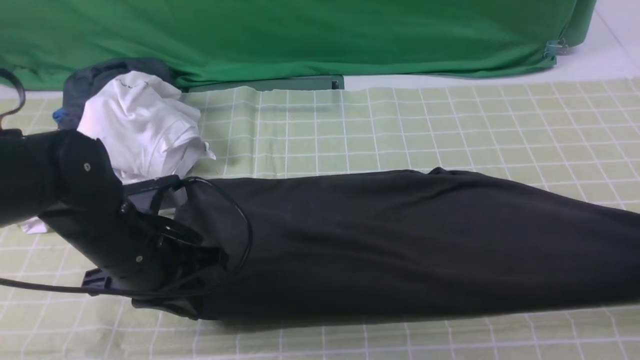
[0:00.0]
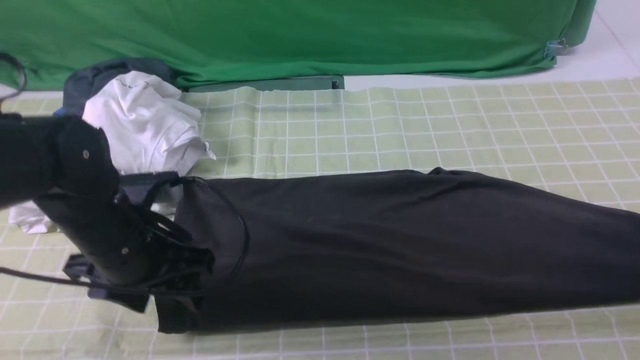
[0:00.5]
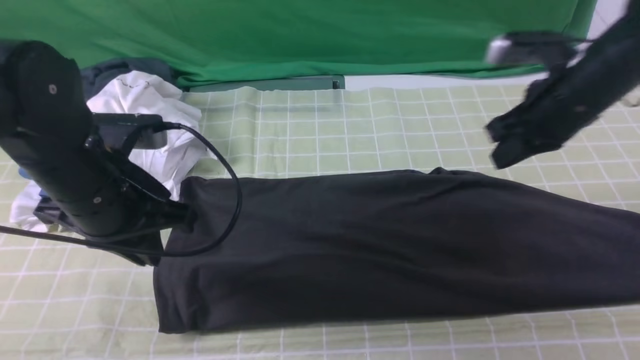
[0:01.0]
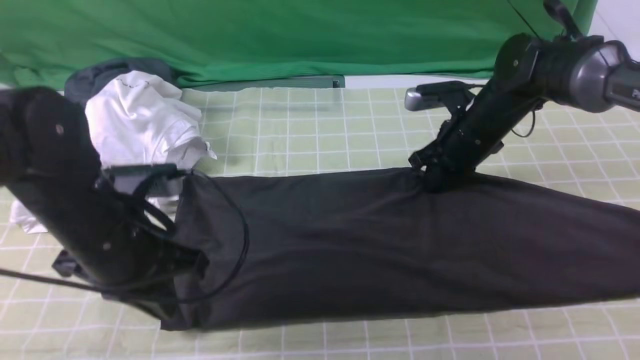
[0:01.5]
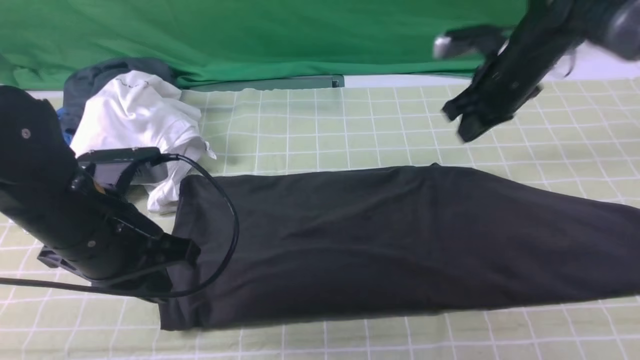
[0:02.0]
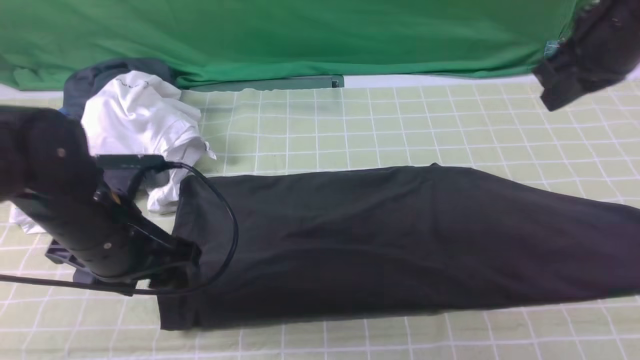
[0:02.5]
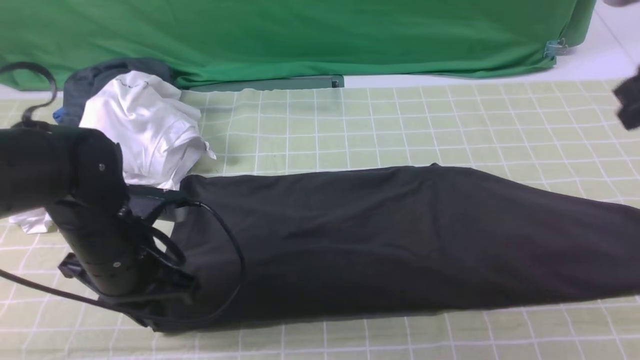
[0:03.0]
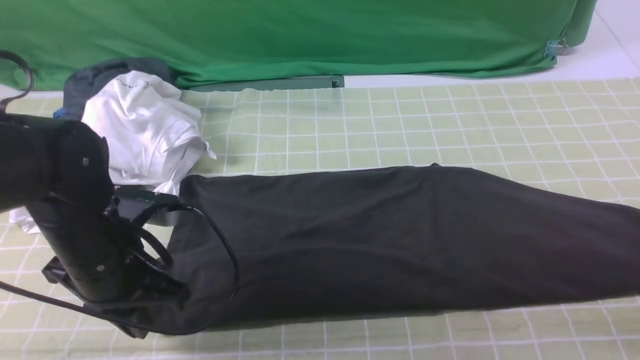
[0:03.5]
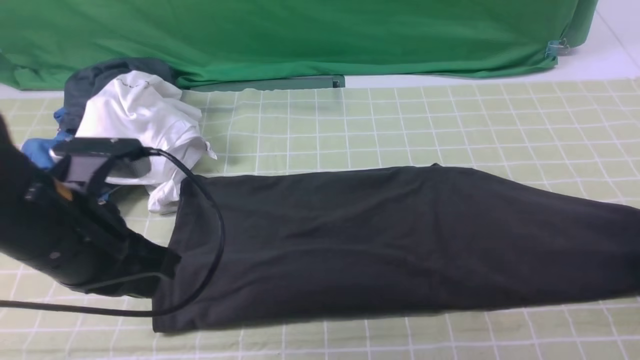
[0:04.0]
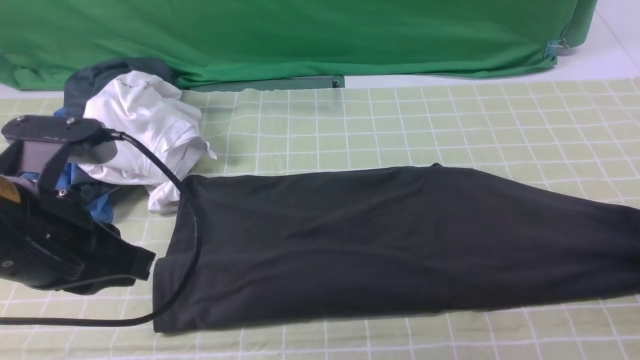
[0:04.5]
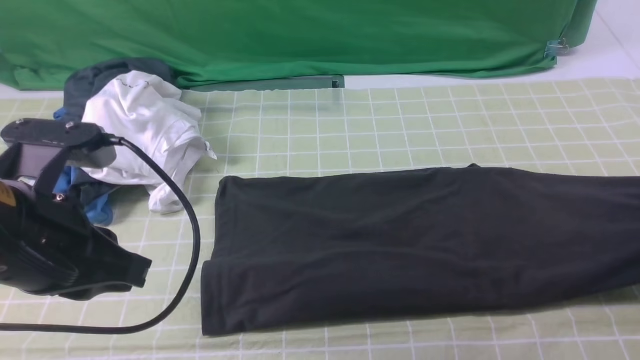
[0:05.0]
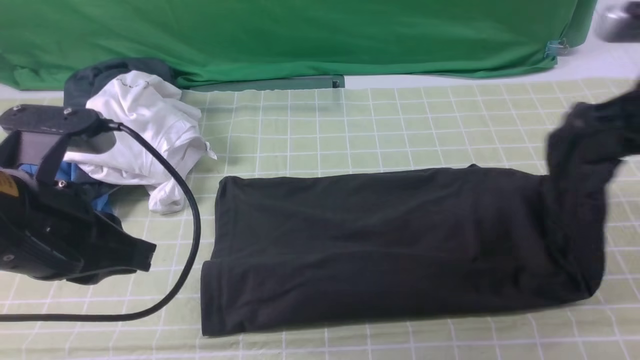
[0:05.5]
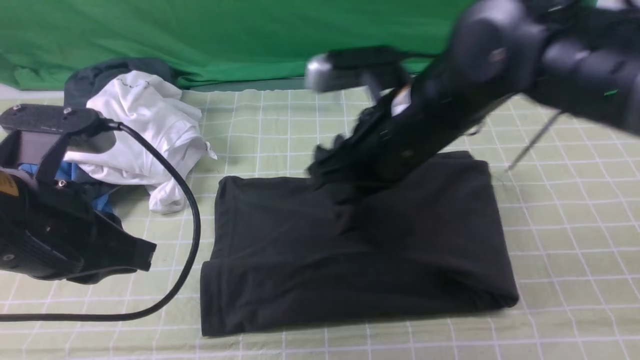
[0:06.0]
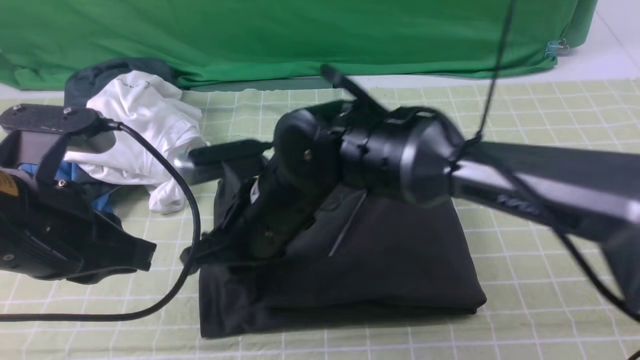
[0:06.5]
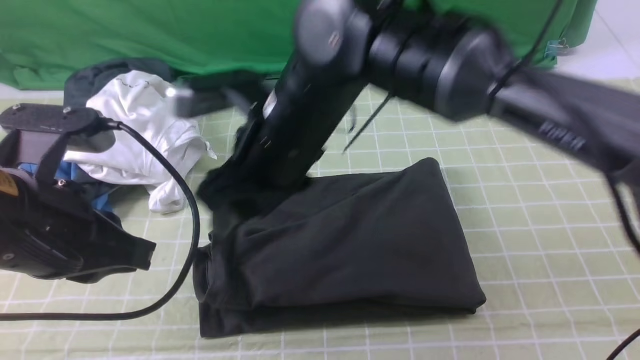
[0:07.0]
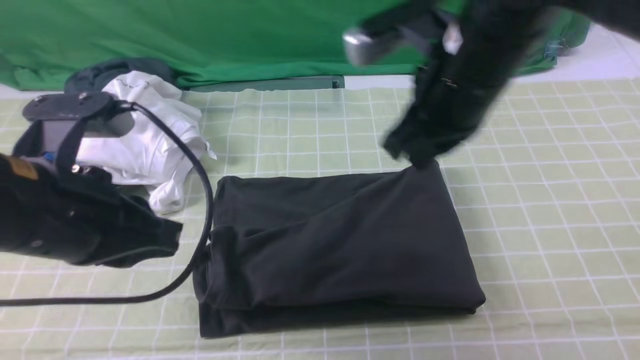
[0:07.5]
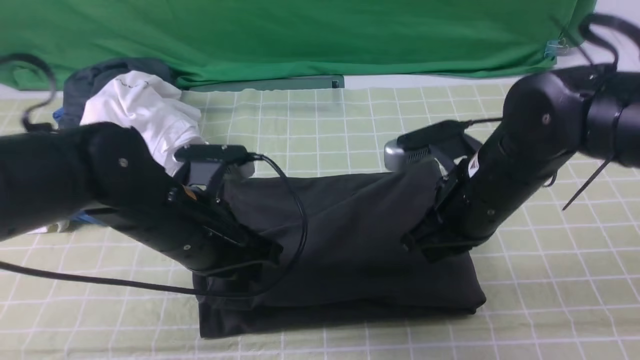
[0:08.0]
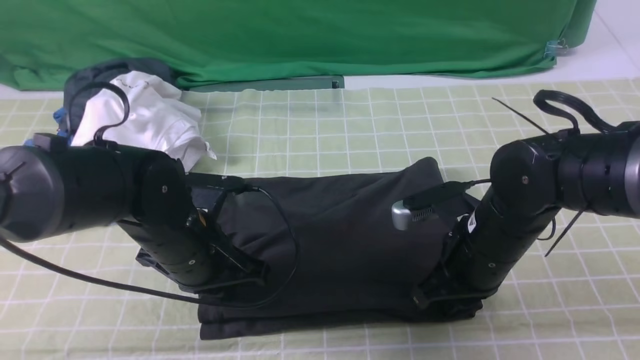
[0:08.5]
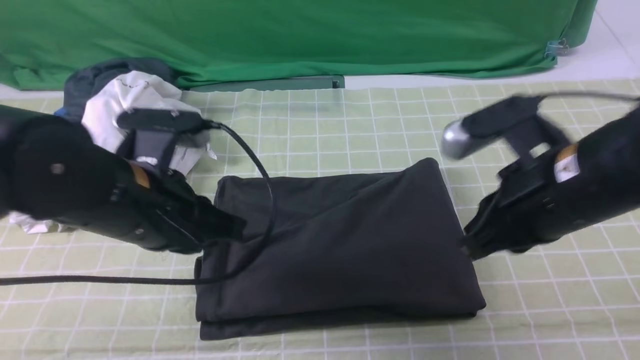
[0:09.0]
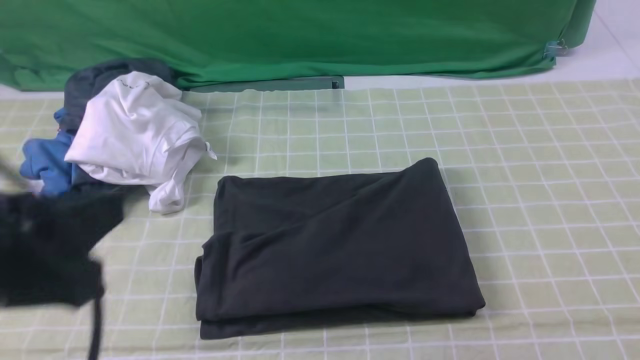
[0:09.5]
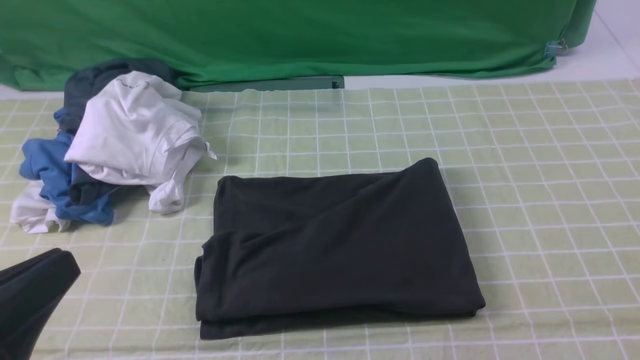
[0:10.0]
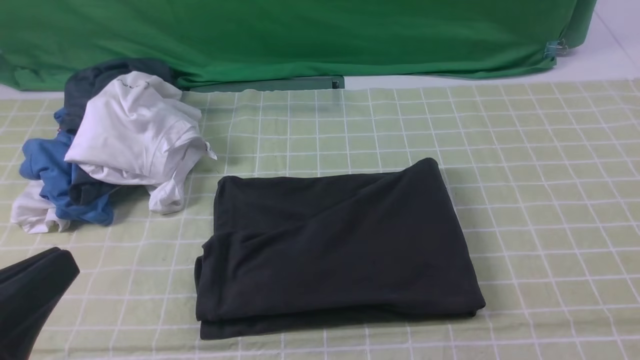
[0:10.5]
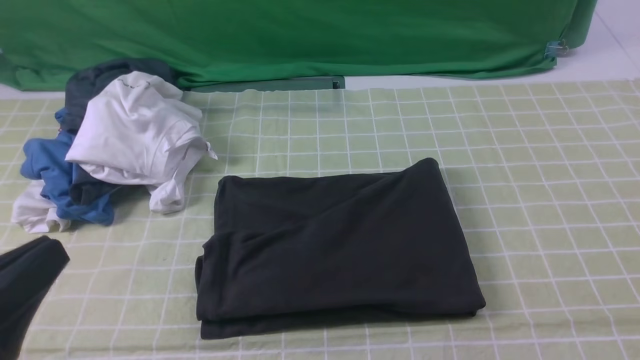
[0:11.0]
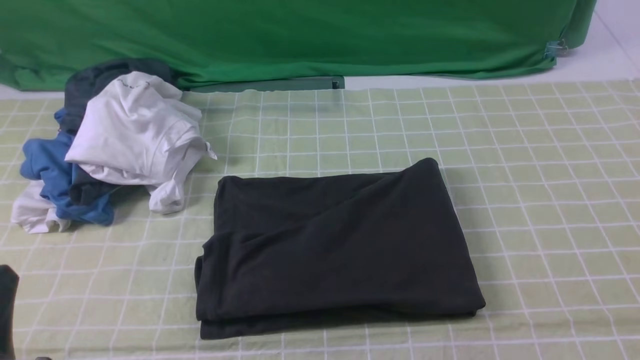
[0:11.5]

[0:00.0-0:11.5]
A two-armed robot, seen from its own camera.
Step, 0:00.0 to 0:04.5: use the right arm to clamp the right edge of the fabric.
Step, 0:05.0 to 0:06.5: use the right arm to drag the right edge of the fabric to the left and folds it over the left edge.
0:00.0 to 0:02.0: The right gripper travels to the left and forward by about 25 cm, and closes; the left gripper travels upward by some 5 cm, and opens, then closes once more.
0:02.0 to 0:04.0: The right gripper shifts about 25 cm to the right and backward, and opens, while the left gripper goes downward and returns, about 5 cm each way, and opens, then closes again.
0:04.0 to 0:06.0: The right gripper is displaced to the left by roughly 40 cm, and closes its fingers.
0:06.0 to 0:07.5: The right gripper goes to the left and returns, about 10 cm each way, and opens, then closes once more.
0:07.5 to 0:09.5: The right gripper travels backward and to the right by about 30 cm. Meanwhile the left gripper is displaced backward by roughly 10 cm.
0:09.5 to 0:11.5: The left gripper shifts some 10 cm downward.
